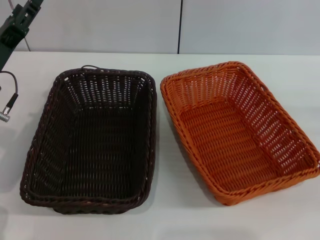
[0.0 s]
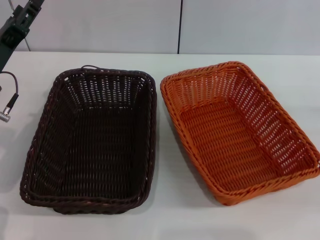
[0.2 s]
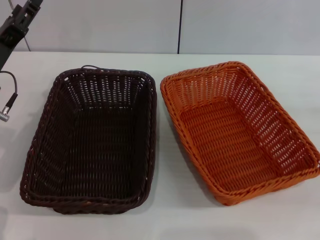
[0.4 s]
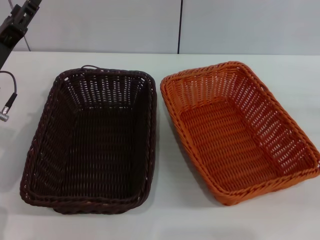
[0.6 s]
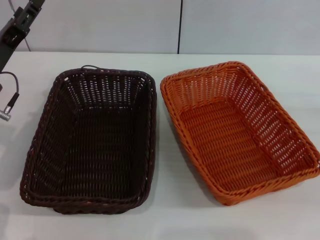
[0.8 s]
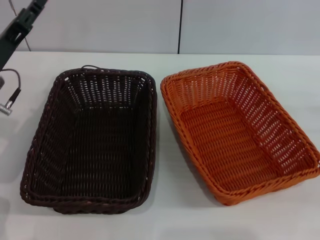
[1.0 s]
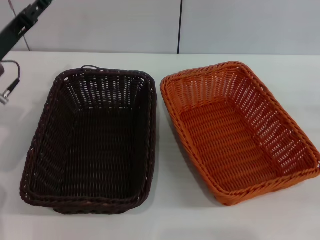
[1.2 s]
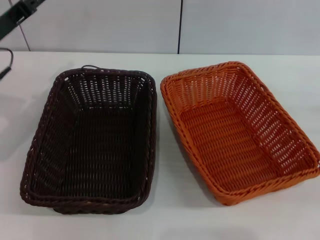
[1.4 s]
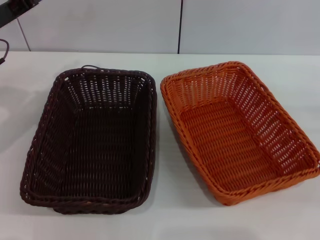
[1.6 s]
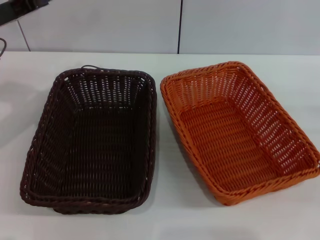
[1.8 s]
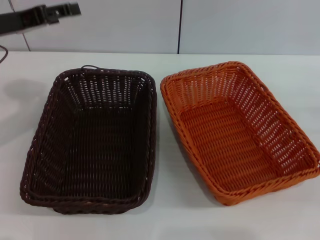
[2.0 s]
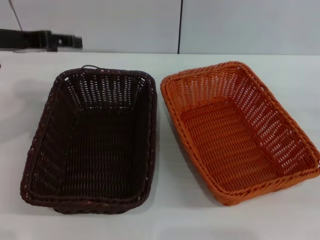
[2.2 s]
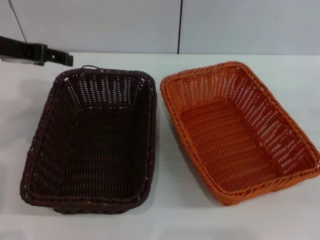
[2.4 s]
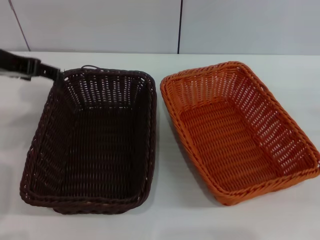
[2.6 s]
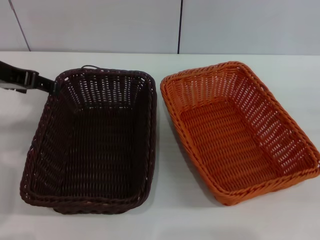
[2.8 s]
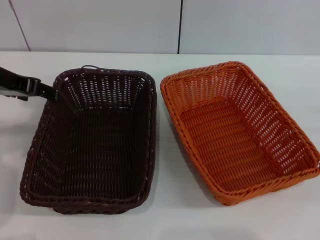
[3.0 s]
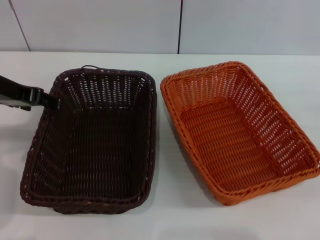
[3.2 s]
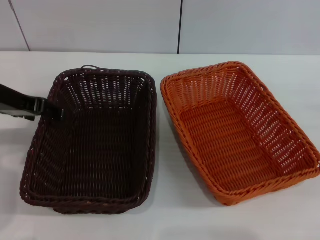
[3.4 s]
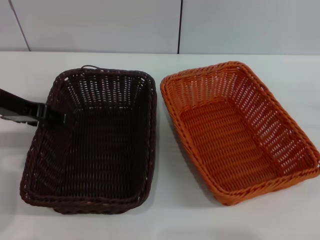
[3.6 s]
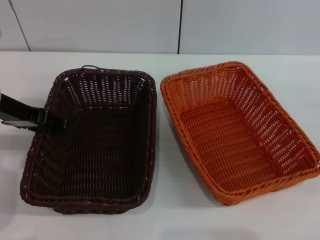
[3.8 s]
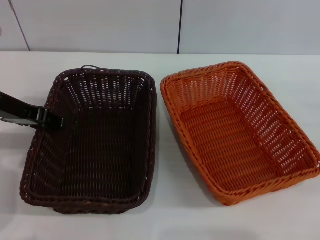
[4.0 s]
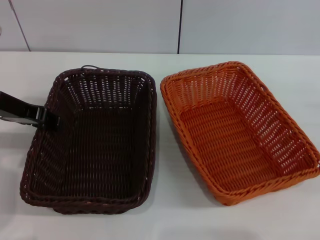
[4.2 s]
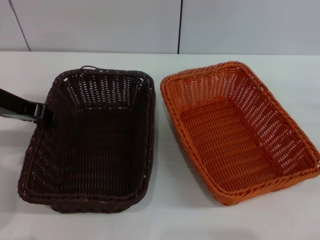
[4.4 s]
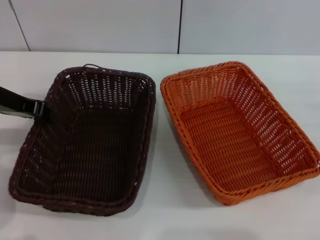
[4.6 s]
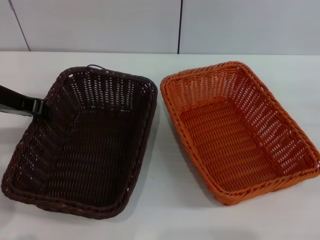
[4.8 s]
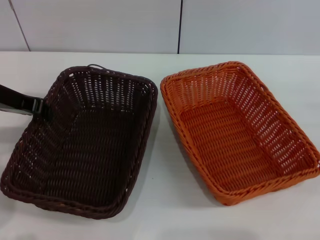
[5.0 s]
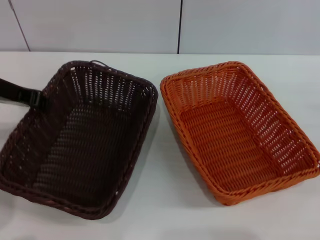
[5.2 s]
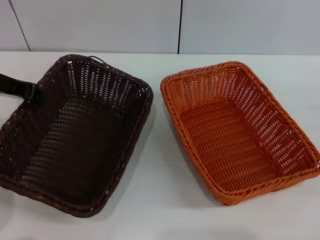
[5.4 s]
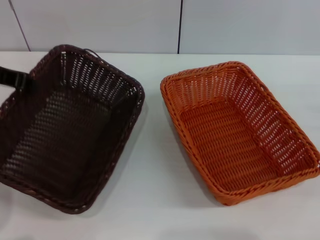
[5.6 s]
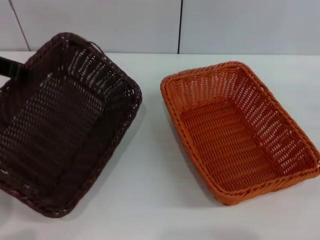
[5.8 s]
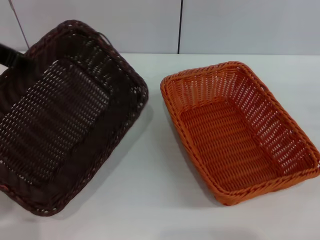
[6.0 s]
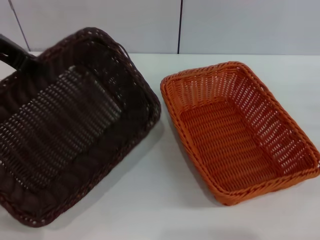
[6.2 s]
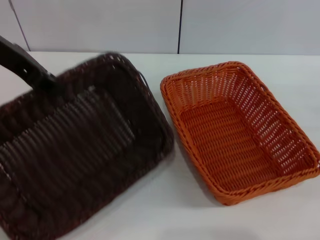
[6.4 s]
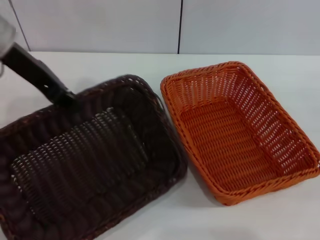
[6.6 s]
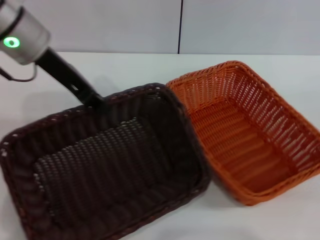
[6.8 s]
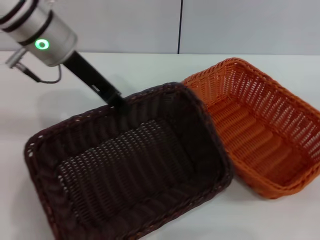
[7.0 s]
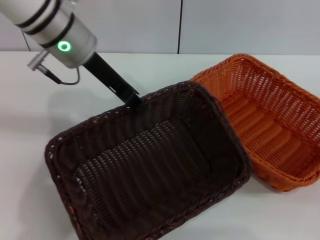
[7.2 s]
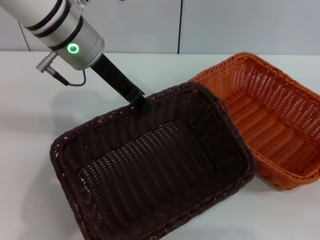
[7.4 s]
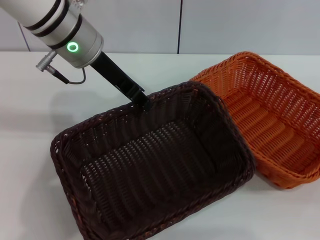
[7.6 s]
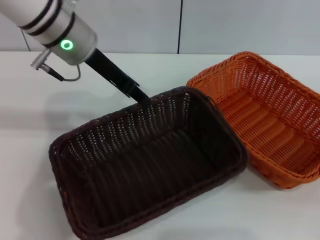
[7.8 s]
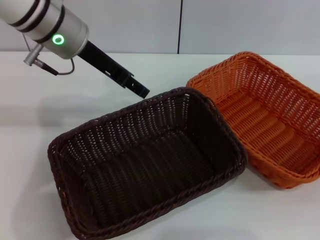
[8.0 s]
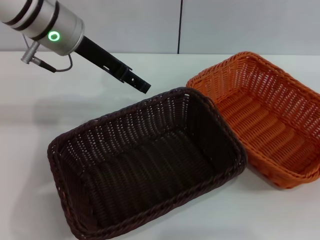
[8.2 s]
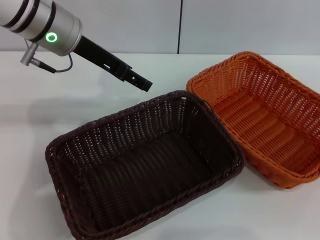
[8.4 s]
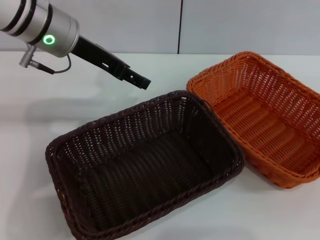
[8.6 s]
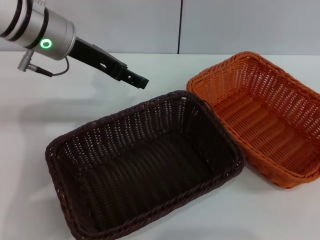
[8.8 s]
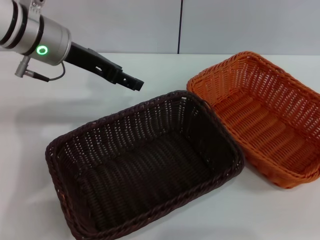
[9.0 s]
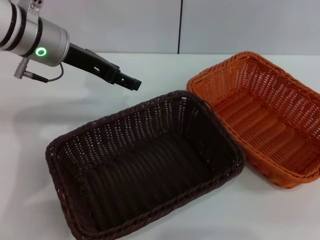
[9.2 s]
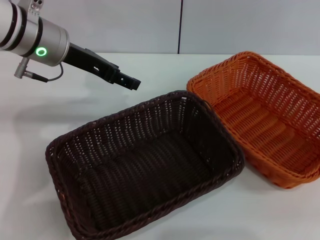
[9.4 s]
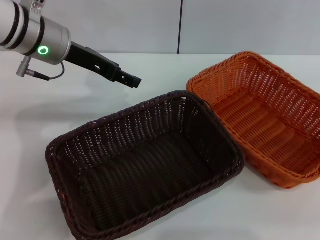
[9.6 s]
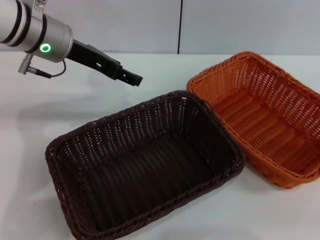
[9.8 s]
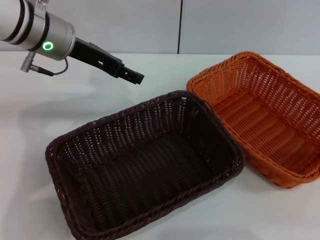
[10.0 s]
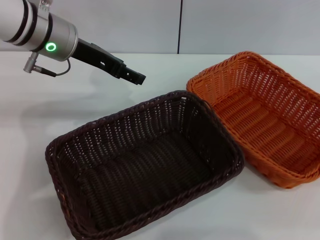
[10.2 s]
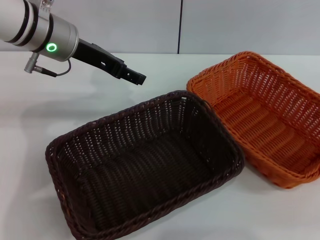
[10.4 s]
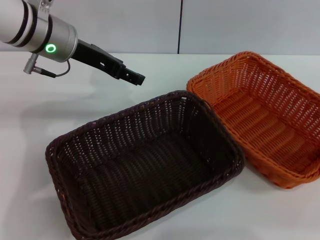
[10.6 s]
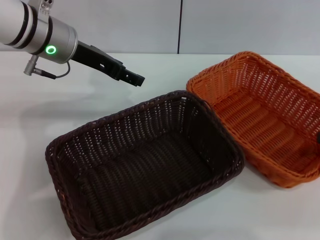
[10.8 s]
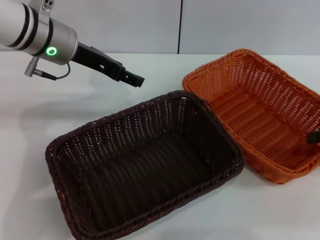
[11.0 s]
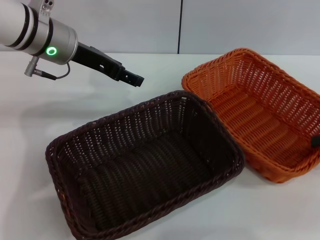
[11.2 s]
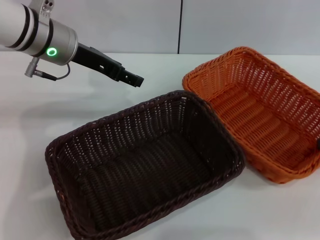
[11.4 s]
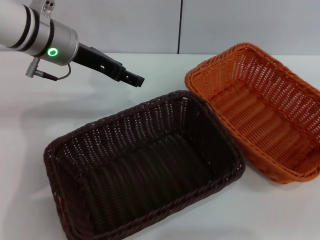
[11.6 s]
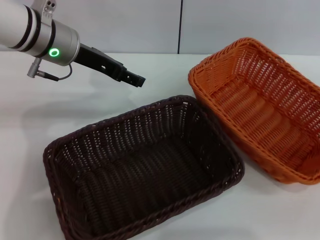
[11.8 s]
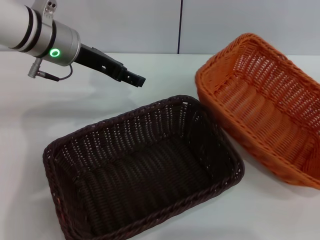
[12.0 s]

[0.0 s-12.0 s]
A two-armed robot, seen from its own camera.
Step, 0.0 to 5.8 s: Pick up the dark basket with the left gripper.
Step, 6.0 to 7.8 s: Place the dark basket in the center of view with the left gripper.
0.0 to 1.6 s: The left gripper travels upward and forward by some 10 cm.
1.6 to 3.0 s: The left gripper ends up roughly 5 cm from where it was.
3.0 to 4.4 s: The left gripper closes.
4.4 to 6.0 s: The left gripper is displaced upward by approximately 10 cm.
6.0 to 7.6 s: The left gripper goes some 15 cm to the right and forward.
7.6 to 9.0 s: The right gripper moves upward, some 20 cm. The left gripper shifts some 5 cm to the left, and opens its fingers.
9.0 to 10.4 s: The right gripper travels downward by roughly 5 cm.
10.4 to 12.0 s: The right gripper travels downward by about 5 cm, and closes its fingers.

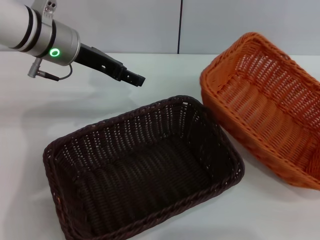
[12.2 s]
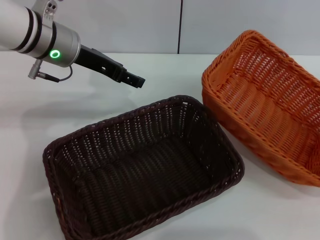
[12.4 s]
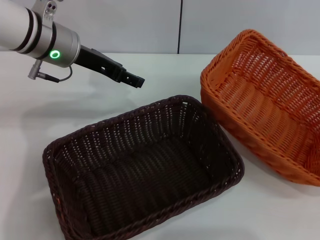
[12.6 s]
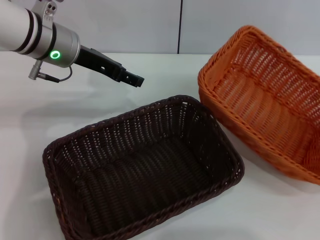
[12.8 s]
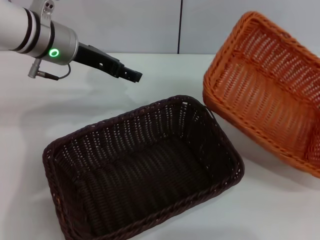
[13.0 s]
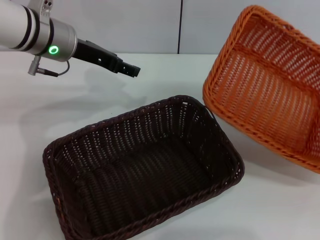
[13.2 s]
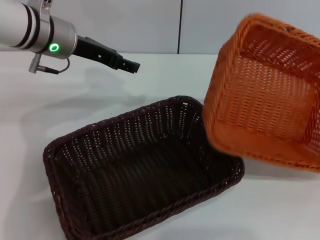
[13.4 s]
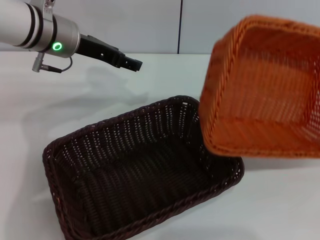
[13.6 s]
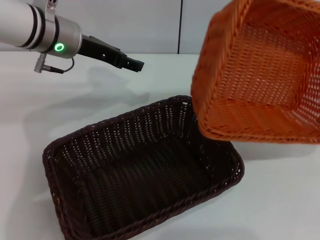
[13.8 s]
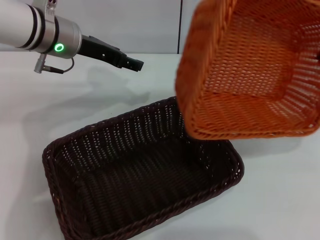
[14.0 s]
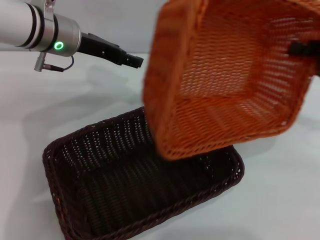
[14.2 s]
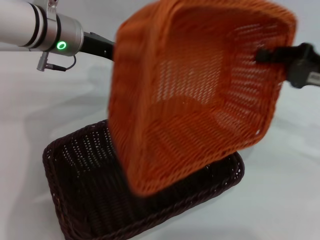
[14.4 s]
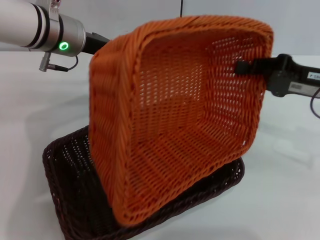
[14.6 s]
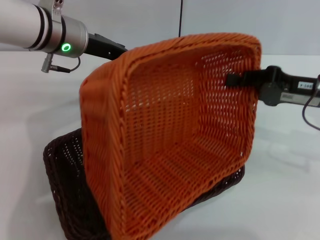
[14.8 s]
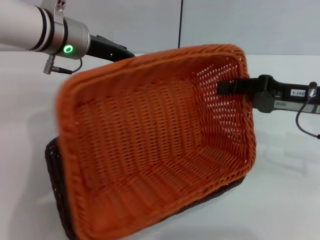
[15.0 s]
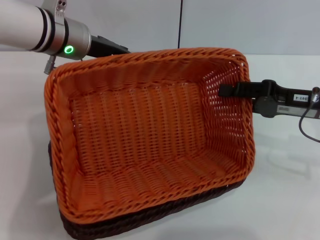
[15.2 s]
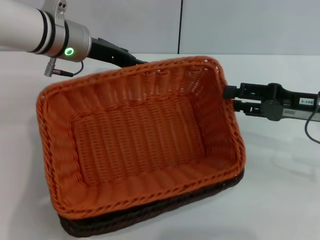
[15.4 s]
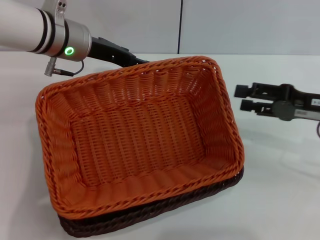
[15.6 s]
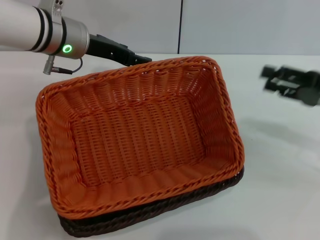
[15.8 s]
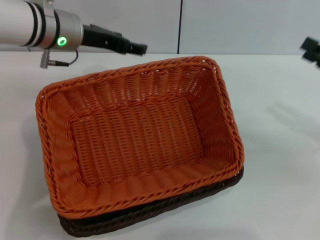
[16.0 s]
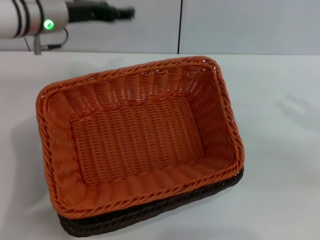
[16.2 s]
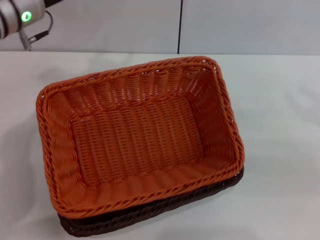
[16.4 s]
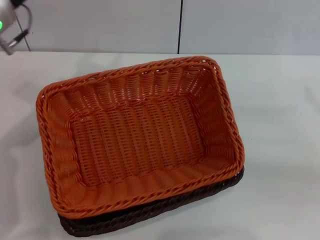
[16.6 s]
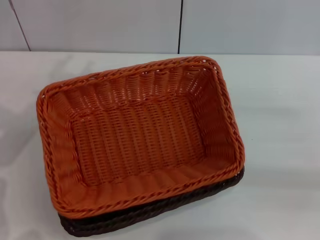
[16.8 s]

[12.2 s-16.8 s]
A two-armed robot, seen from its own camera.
Step, 13.0 to 15.4 s: Place the light basket on the dark basket with the right gripper.
13.8 to 15.2 s: The right gripper moves to the left, approximately 15 cm.
15.2 to 16.8 s: The left gripper heads to the left and backward, covering approximately 10 cm. Meanwhile the right gripper is displaced to the right by some 10 cm, and opens.
